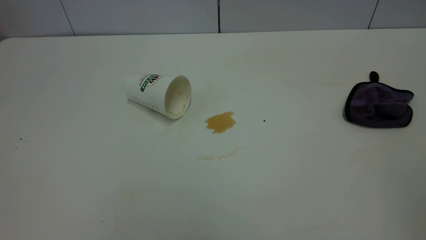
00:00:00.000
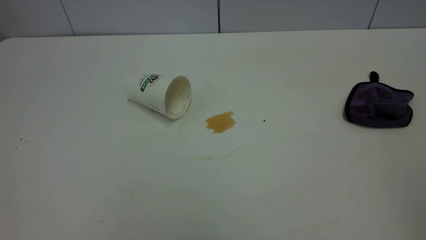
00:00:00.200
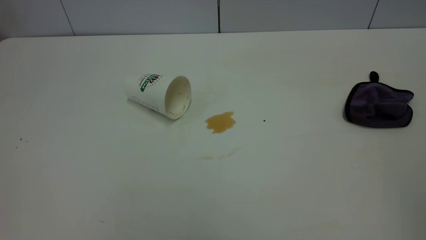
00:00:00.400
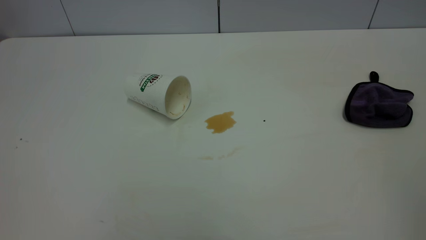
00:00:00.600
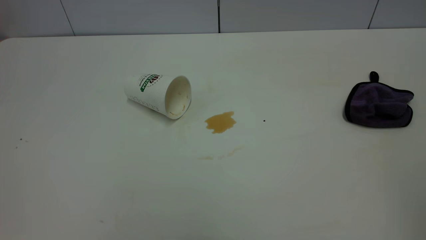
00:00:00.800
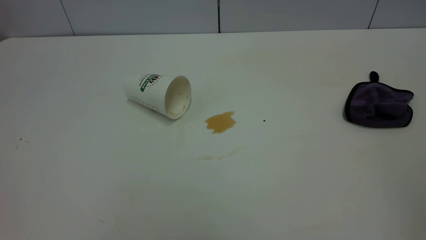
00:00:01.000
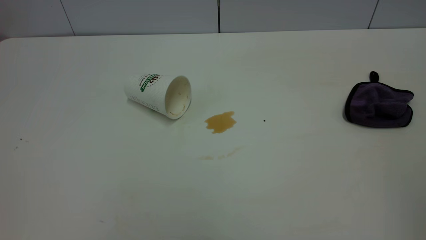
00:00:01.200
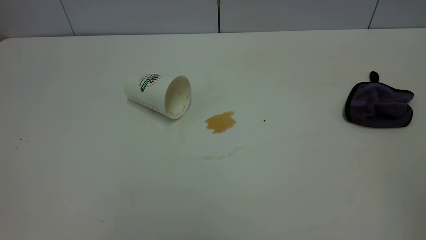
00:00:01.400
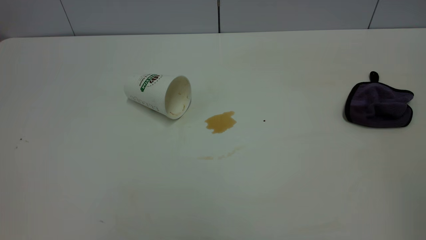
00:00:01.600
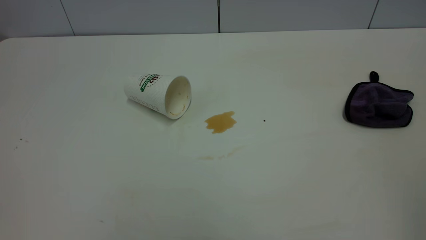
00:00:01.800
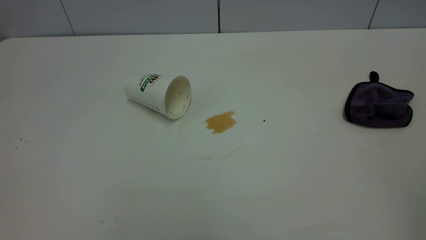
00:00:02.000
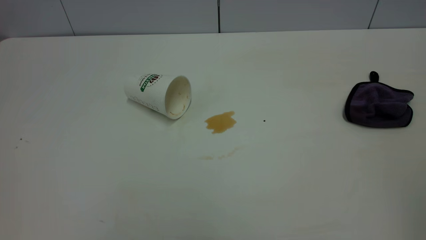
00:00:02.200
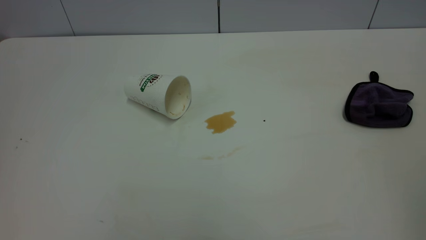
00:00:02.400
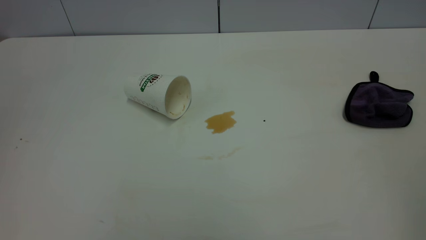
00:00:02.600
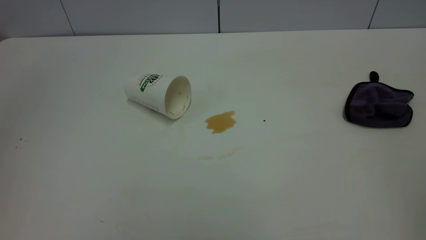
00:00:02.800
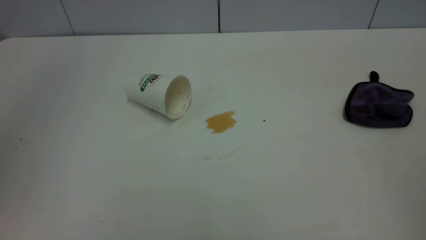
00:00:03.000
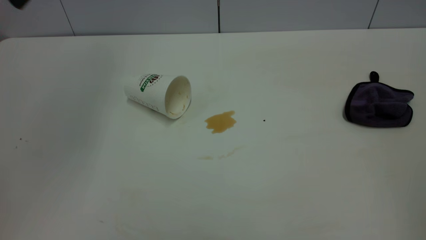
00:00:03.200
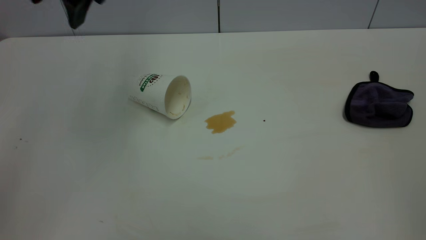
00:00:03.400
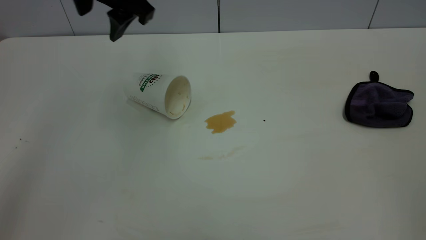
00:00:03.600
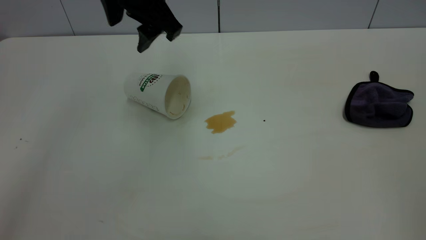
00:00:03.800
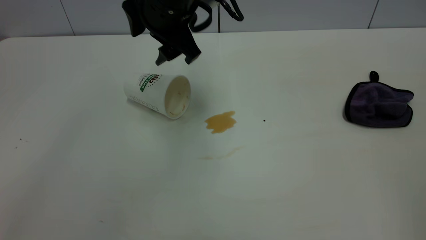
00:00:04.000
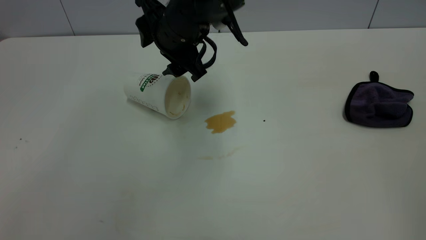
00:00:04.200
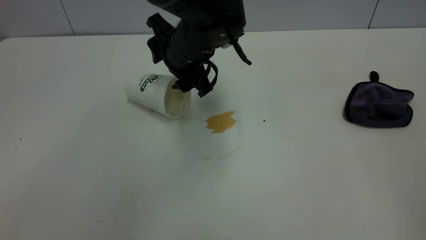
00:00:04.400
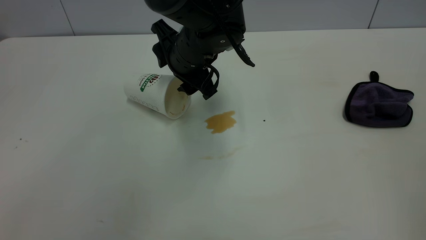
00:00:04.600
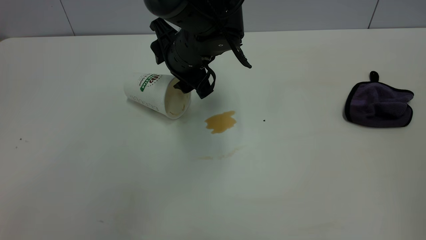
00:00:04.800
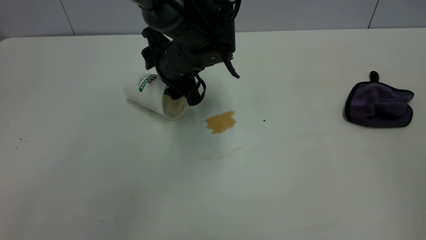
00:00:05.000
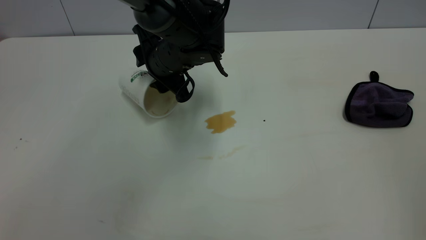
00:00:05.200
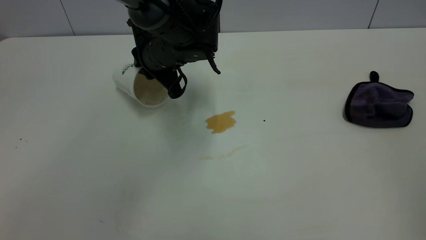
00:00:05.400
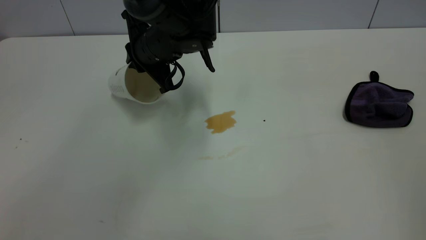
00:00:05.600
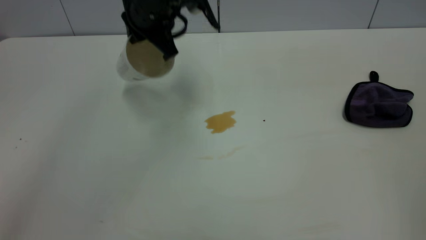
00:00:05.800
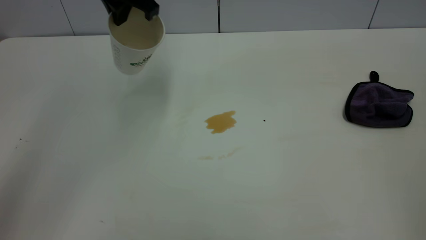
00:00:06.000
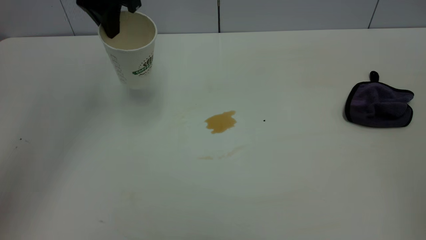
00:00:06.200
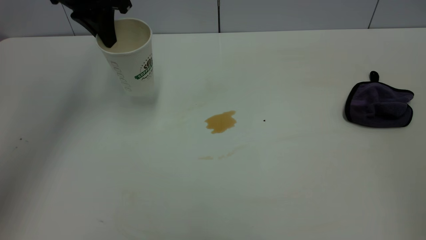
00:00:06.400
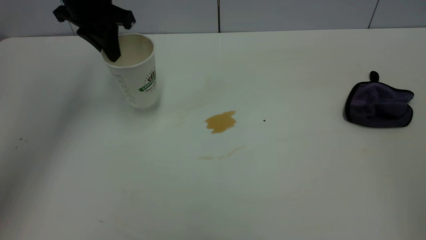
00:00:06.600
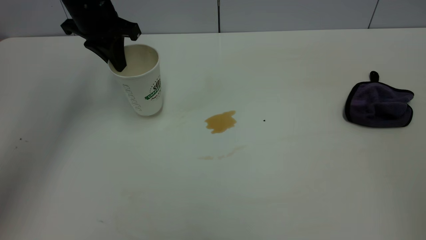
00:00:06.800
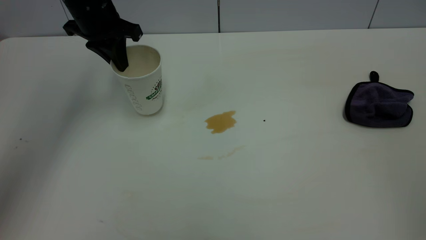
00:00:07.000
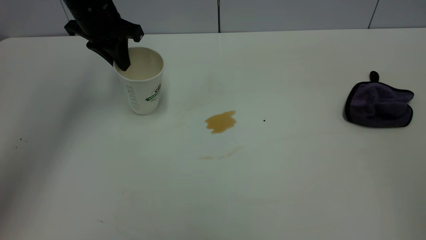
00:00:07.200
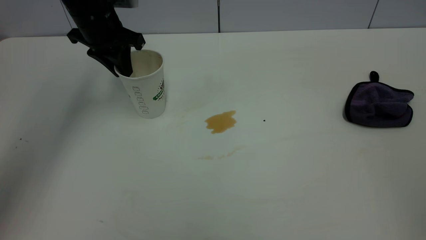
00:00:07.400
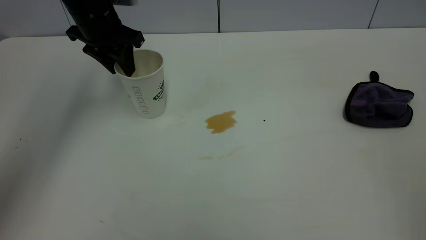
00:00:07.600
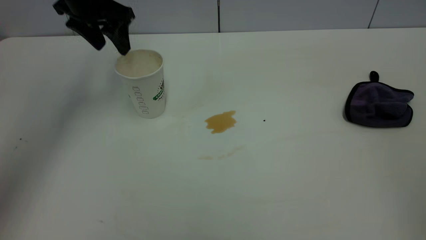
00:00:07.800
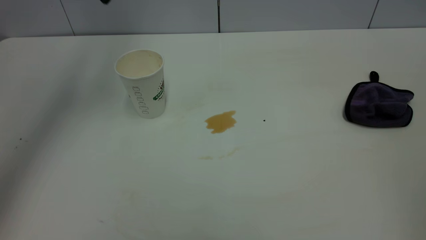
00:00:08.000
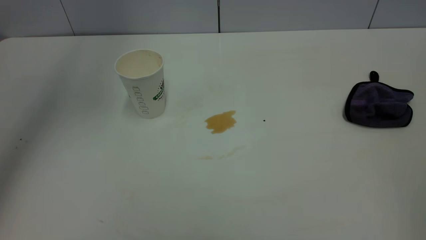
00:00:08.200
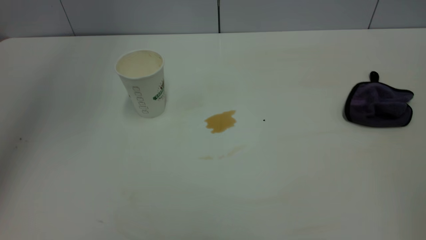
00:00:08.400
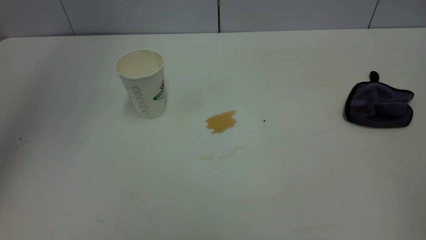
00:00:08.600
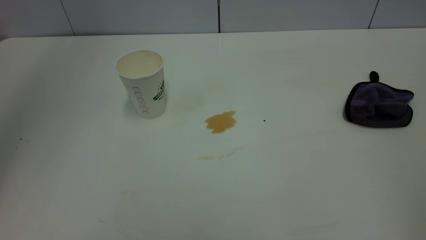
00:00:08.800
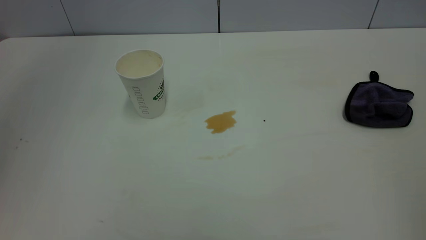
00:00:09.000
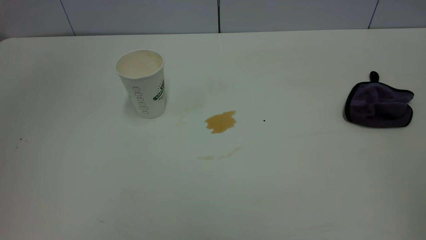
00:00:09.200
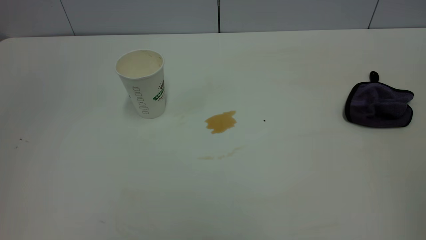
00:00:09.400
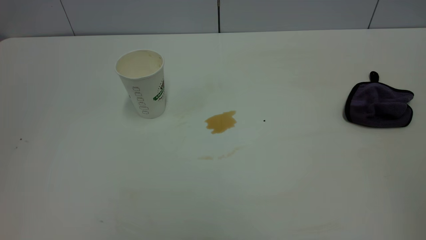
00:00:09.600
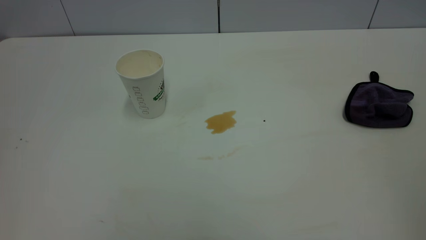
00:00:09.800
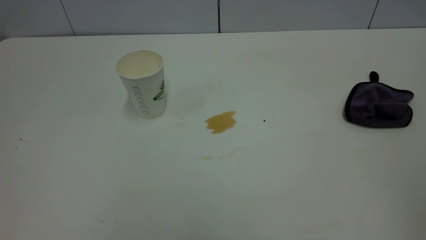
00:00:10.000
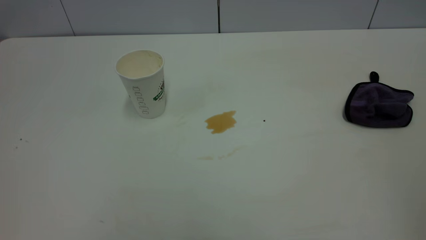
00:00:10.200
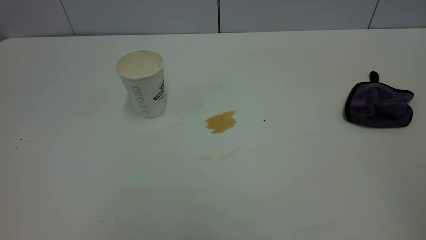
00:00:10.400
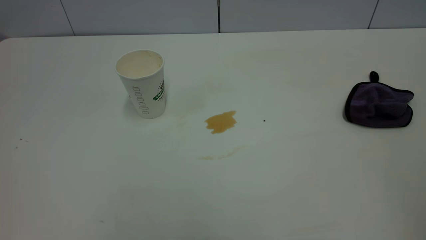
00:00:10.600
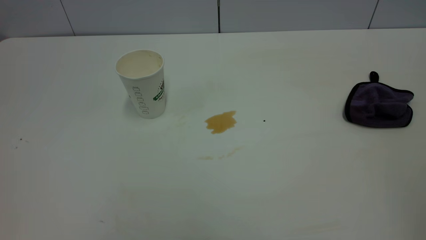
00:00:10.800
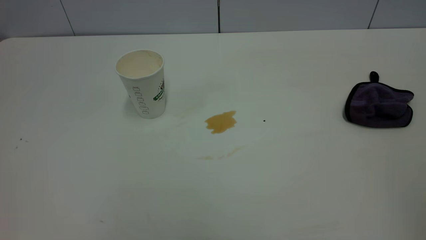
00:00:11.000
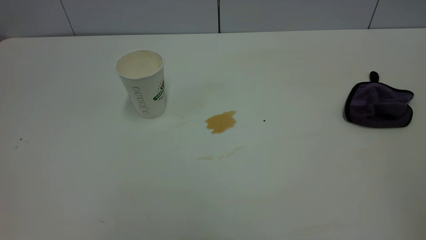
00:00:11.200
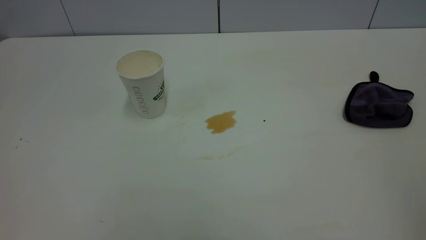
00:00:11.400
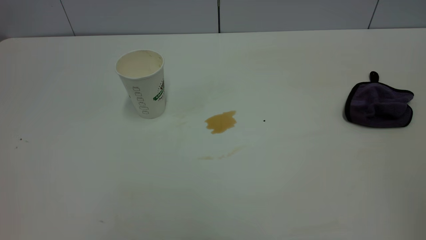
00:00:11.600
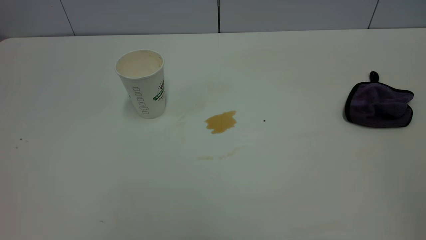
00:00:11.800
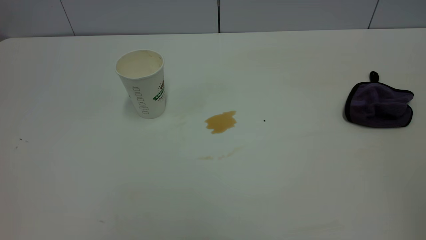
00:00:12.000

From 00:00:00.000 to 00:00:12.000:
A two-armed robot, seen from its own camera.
Task of the whole recording: the left gripper pick up the fallen cup and place it upright, the right gripper grasp the purple rag and wipe the tea stain on the table, the right gripper put the purple rag back in its original position.
Step, from 00:00:00.000 to 00:00:07.800: Stand the paper cup upright.
From 00:00:00.000 to 00:00:01.600: The two grippers keep their place.
From 00:00:03.000 to 00:00:04.400: The left gripper goes some 35 cm downward, to the right and forward.
From 00:00:04.400 to 00:00:06.000: The left gripper heads upward and to the left, covering approximately 15 cm, and closes.
From 00:00:06.000 to 00:00:07.600: The left gripper goes roughly 10 cm downward and to the left, and opens.
From 00:00:07.600 to 00:00:09.000: The left gripper shifts approximately 40 cm upward and backward.

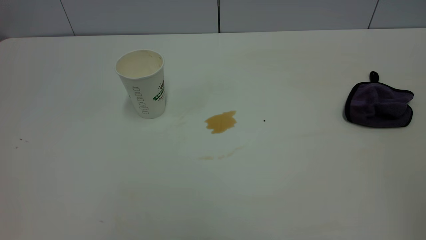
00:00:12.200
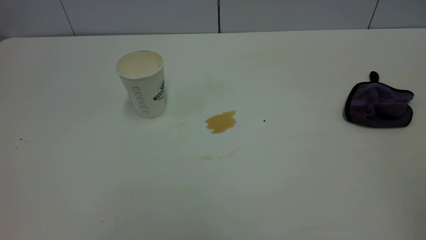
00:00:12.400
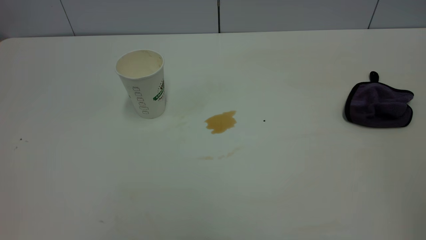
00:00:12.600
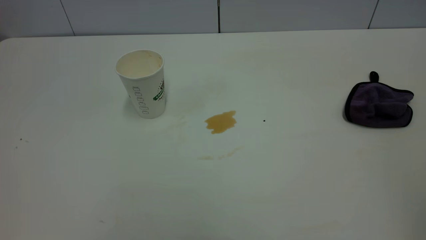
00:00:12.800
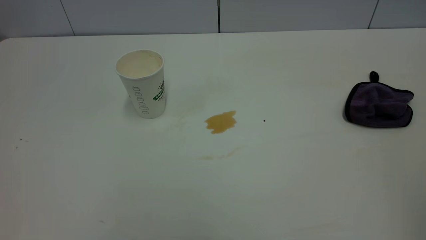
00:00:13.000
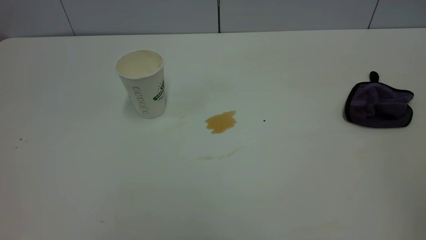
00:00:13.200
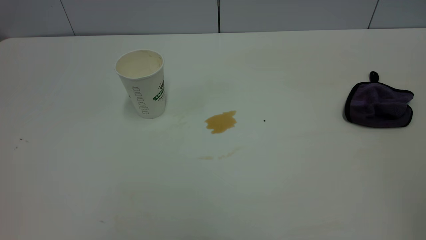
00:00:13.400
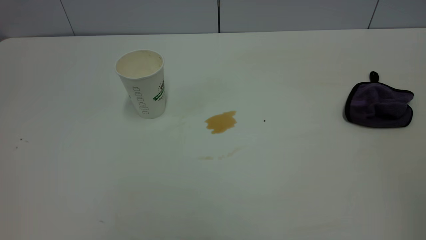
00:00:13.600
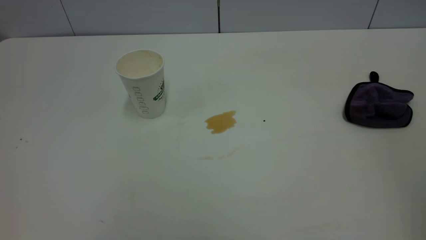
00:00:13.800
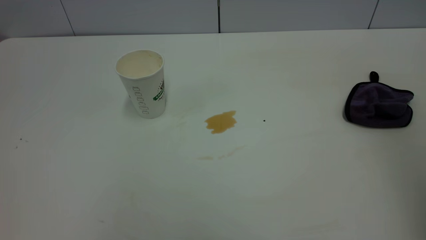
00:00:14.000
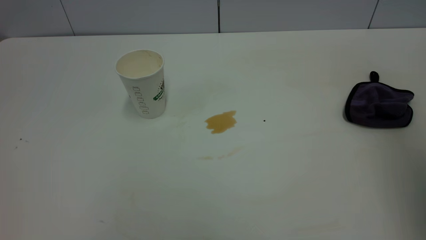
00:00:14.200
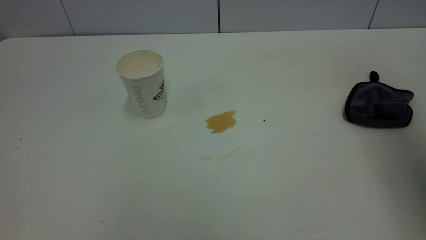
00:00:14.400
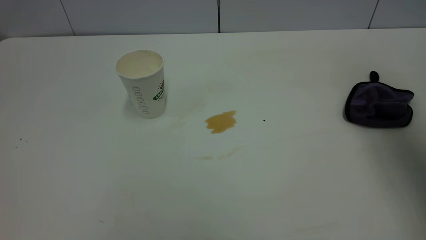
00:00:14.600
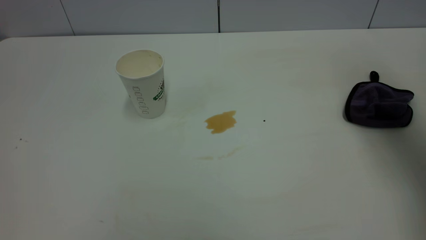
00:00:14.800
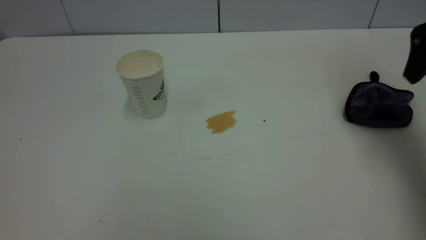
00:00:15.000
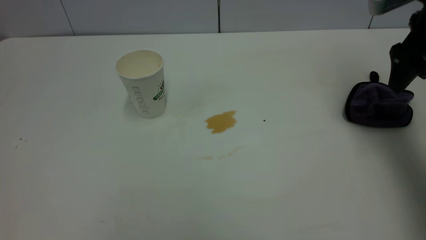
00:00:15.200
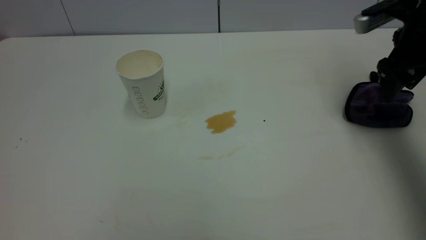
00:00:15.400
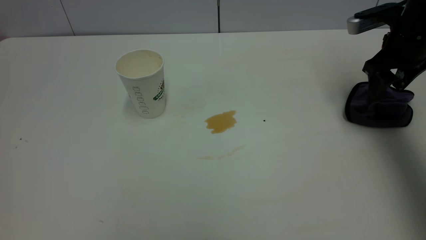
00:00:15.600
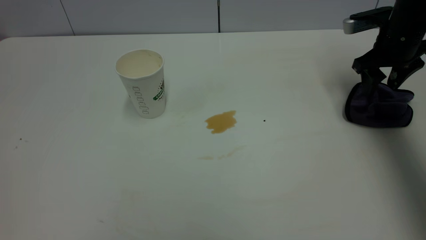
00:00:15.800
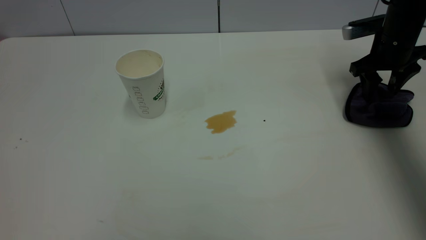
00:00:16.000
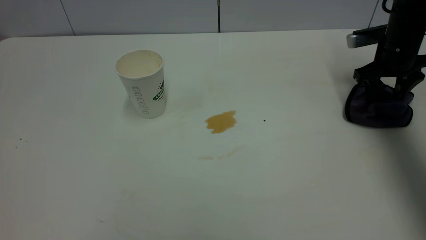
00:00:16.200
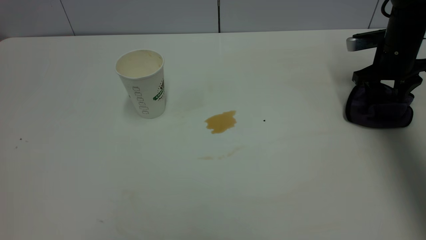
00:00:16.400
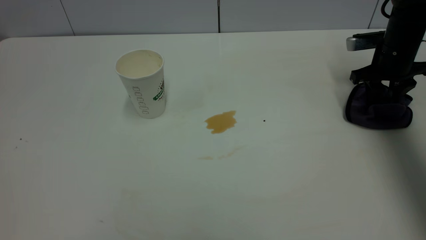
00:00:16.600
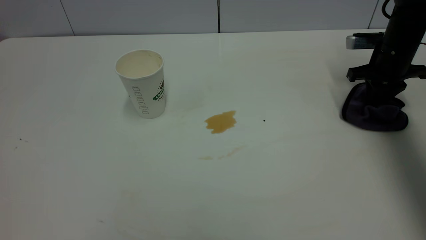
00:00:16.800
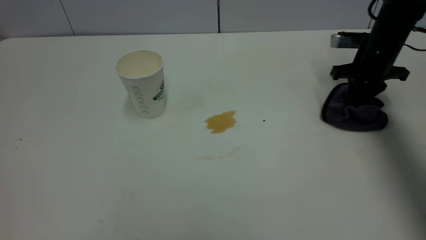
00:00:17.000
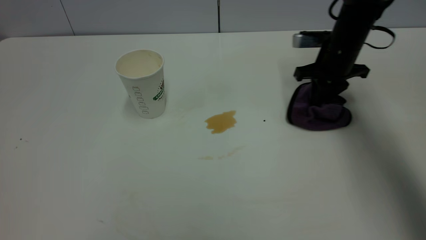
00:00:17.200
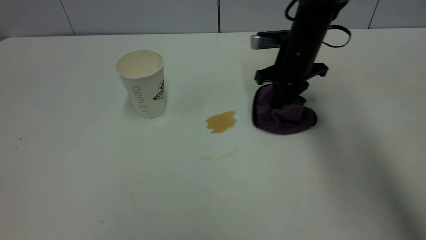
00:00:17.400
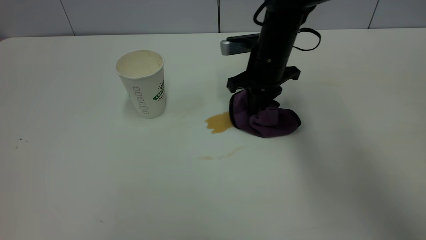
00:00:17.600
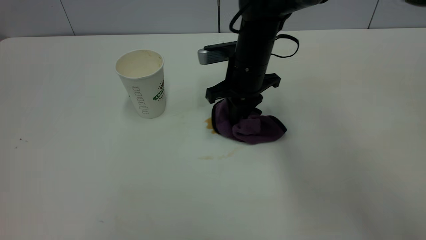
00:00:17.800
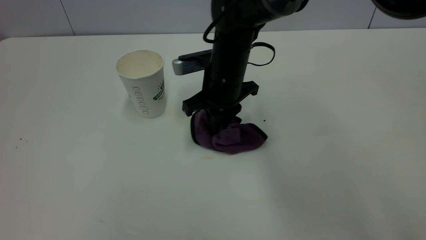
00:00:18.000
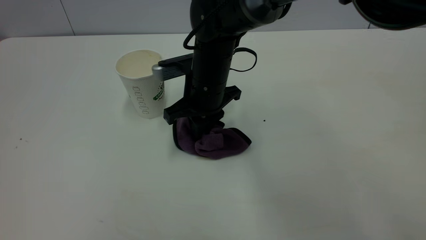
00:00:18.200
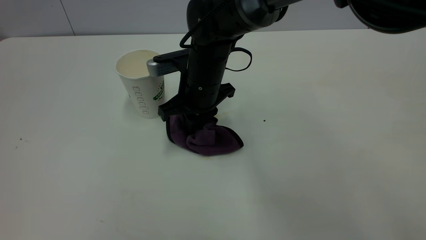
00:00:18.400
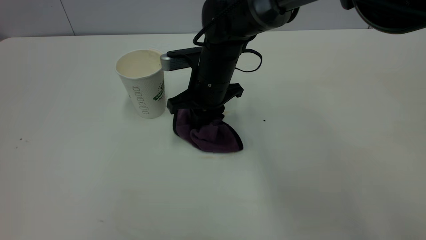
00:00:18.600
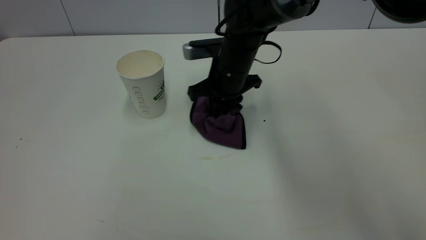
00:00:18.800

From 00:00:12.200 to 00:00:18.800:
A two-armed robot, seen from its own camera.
Task of the whole recording: the left gripper pick up the fallen cup and place it upright, the right gripper grasp the purple rag and wipe the tea stain on the table, the right gripper put the purple rag back in its original position.
From 00:00:13.800 to 00:00:15.400: The right gripper is displaced forward and downward by roughly 50 cm.
From 00:00:15.400 to 00:00:17.200: The right gripper goes some 15 cm to the left, downward and forward, and closes up.
From 00:00:17.200 to 00:00:18.800: The right gripper heads to the left, covering about 15 cm.
